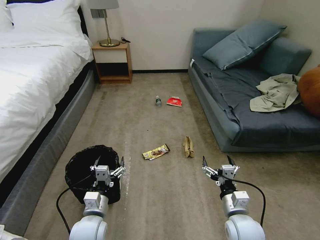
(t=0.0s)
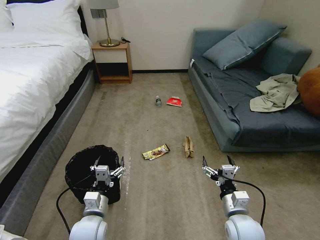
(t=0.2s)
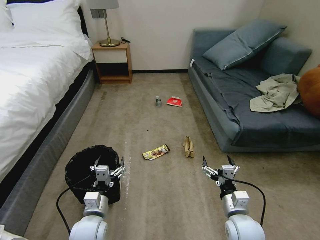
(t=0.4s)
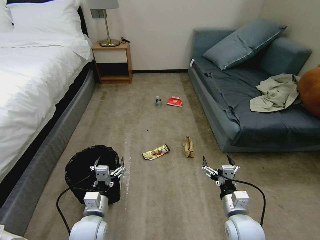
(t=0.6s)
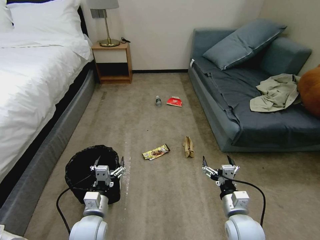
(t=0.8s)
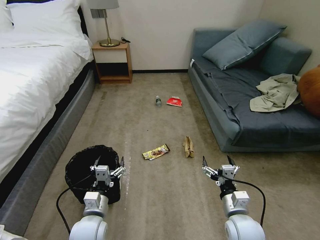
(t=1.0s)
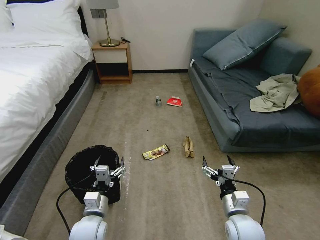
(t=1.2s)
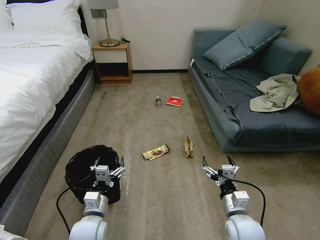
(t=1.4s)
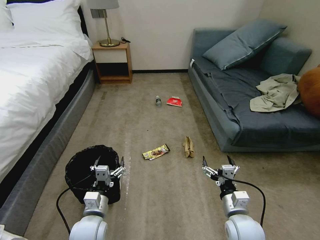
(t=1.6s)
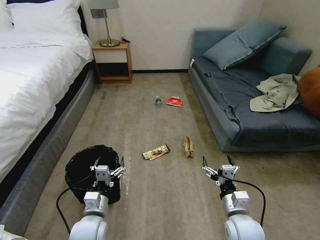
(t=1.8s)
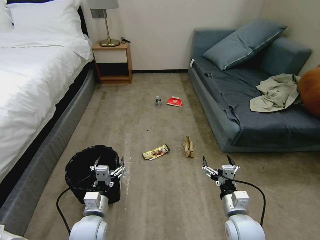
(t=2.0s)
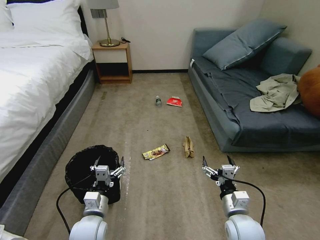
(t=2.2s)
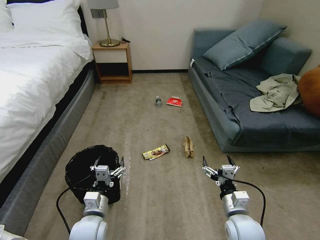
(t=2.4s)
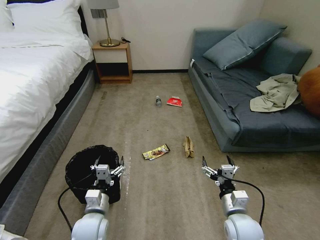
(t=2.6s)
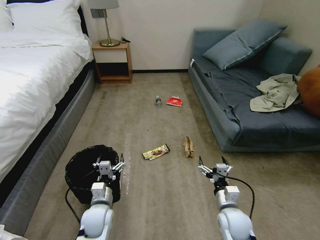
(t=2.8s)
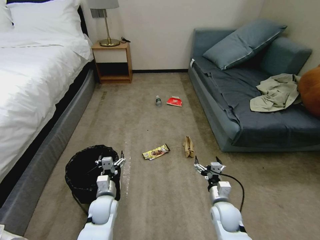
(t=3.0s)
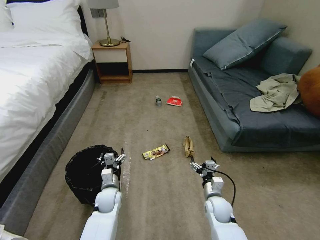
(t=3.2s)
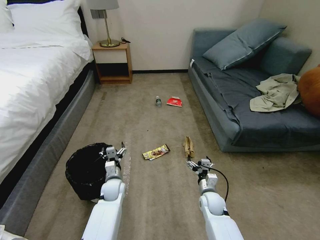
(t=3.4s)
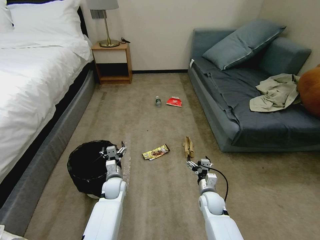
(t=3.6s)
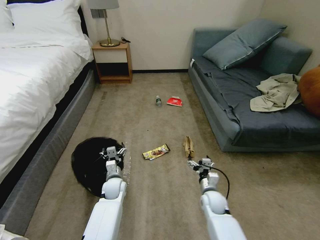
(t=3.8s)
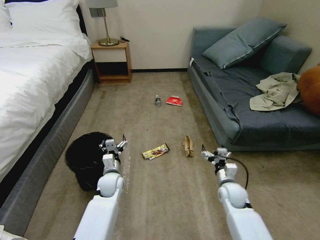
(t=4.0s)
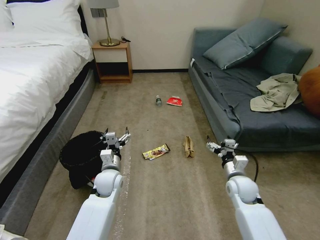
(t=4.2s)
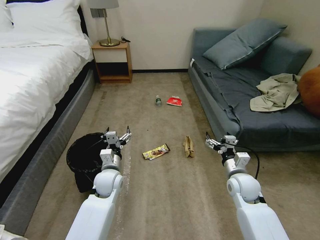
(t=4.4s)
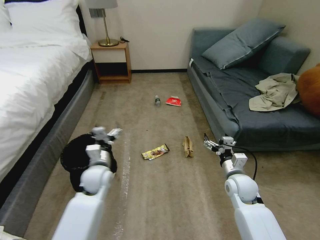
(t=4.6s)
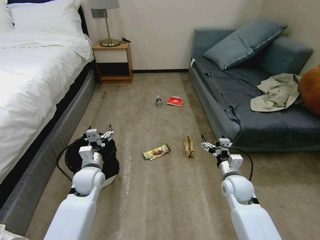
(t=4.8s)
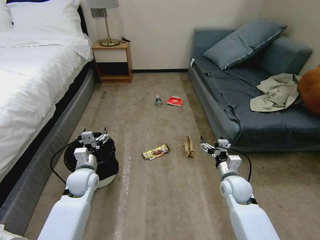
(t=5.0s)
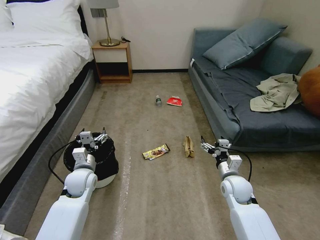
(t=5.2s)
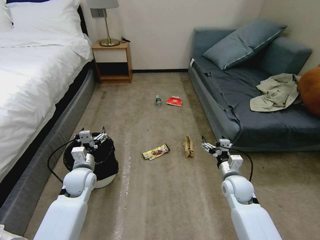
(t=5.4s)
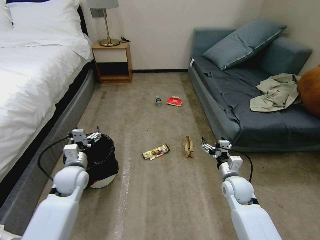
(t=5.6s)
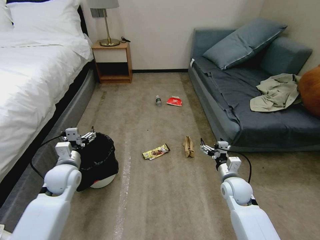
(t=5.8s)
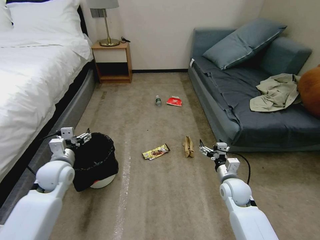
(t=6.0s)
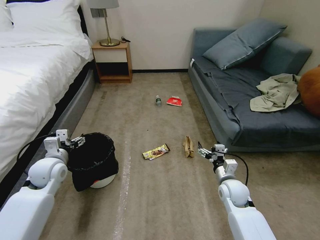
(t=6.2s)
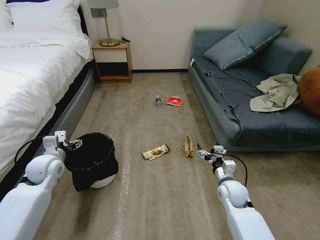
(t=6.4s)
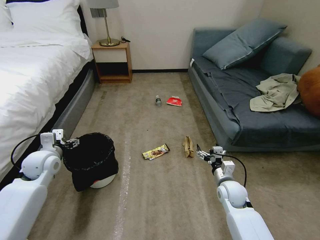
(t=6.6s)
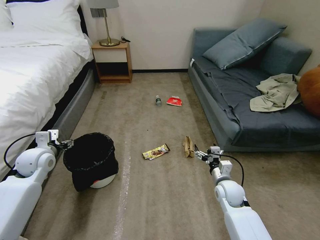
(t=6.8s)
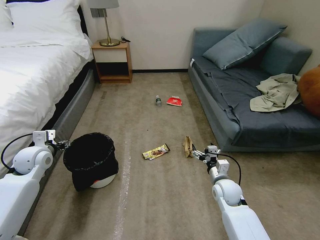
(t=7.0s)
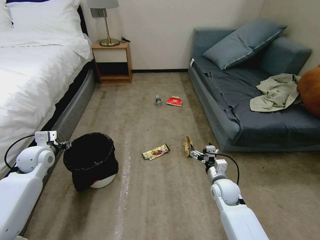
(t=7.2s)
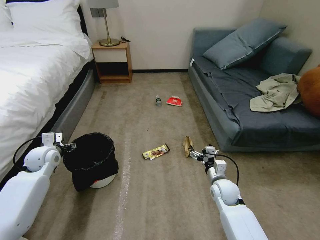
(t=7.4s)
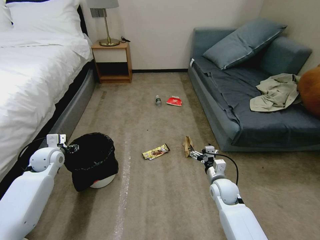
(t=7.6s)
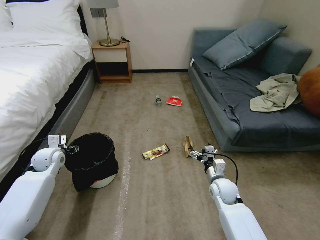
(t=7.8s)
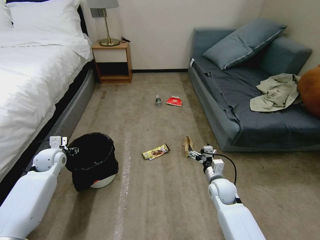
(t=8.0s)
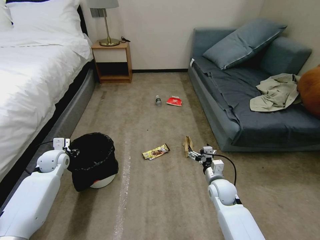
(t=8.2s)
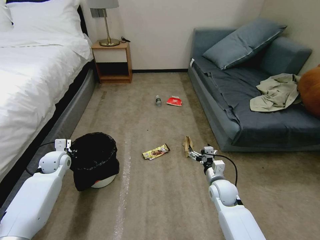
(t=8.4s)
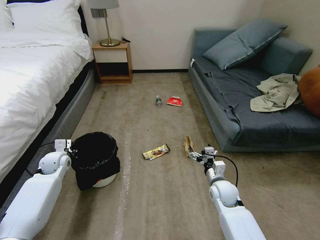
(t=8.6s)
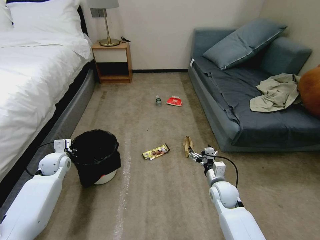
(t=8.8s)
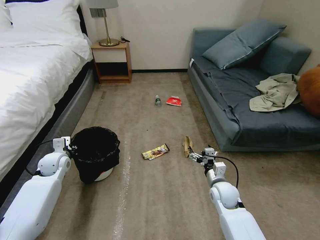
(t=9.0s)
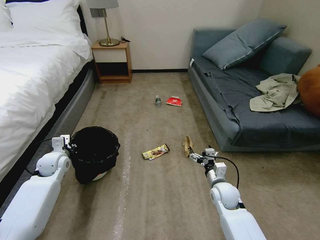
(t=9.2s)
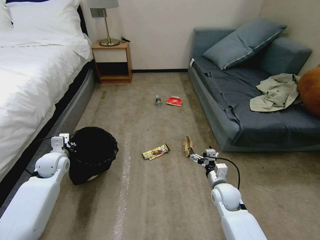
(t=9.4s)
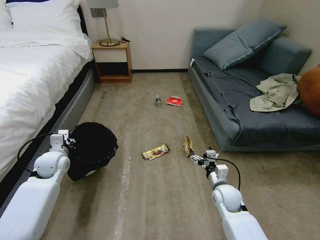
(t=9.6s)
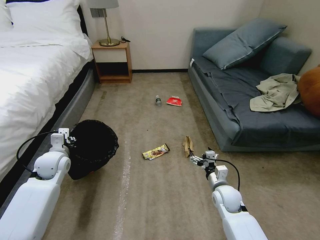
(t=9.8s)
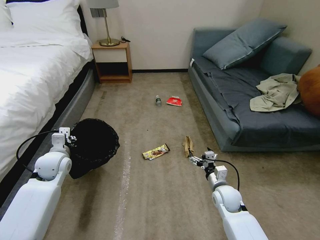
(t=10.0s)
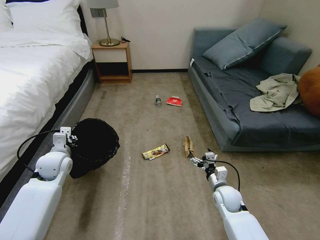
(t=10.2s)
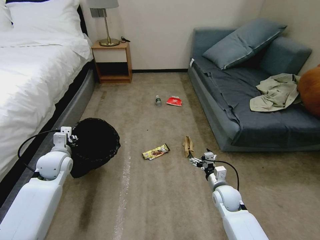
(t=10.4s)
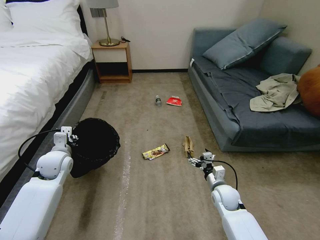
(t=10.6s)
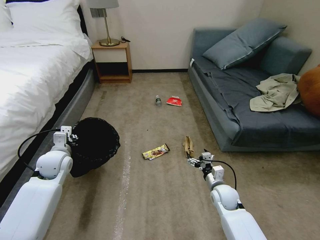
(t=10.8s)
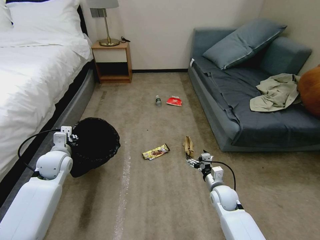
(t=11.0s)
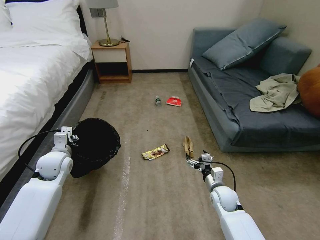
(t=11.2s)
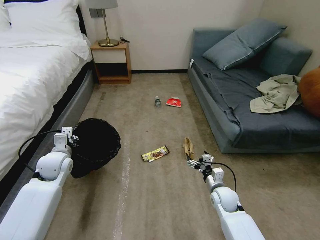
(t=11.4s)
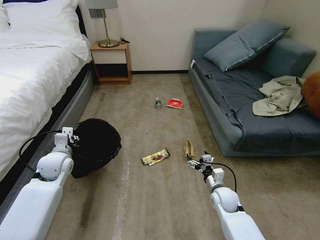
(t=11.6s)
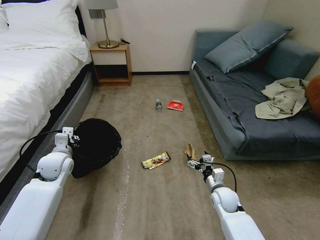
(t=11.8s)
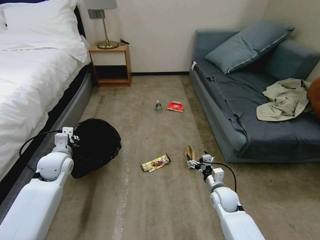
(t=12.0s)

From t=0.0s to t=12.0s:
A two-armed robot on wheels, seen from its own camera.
Task of the whole recording: Pick up the trash bin, then pick up the garbage on the floor and place it into the trash bin.
From t=0.0s to t=1.6s: The two grippers keep their place.
From t=1.6s to t=3.0s: The left gripper heads forward and downward, covering roughly 10 cm; the right gripper travels downward and forward by roughly 10 cm.
From t=3.0s to t=4.4s: The left gripper moves upward and forward, about 10 cm. The right gripper is displaced upward, forward and to the right by about 10 cm.
From t=4.4s to t=6.0s: The left gripper shifts approximately 20 cm to the left and upward.
From t=6.0s to t=7.6s: The left gripper travels to the left and forward by about 10 cm.
From t=7.6s to t=9.0s: The left gripper closes.
From t=9.0s to t=10.4s: The left gripper is displaced upward by about 5 cm.
From t=10.4s to t=12.0s: The grippers make only small movements.

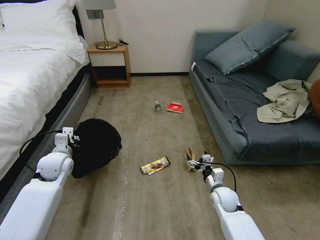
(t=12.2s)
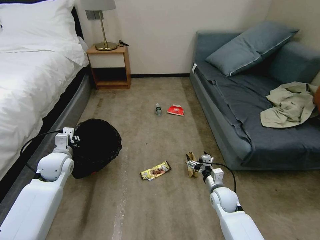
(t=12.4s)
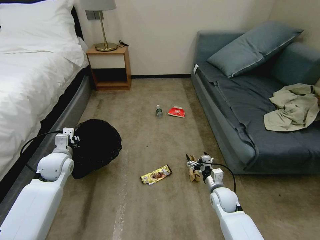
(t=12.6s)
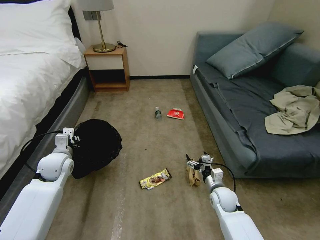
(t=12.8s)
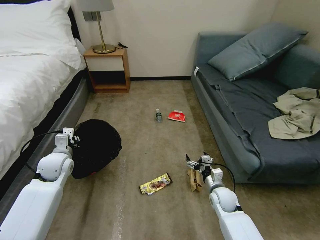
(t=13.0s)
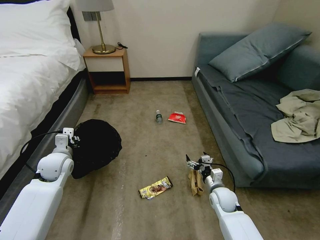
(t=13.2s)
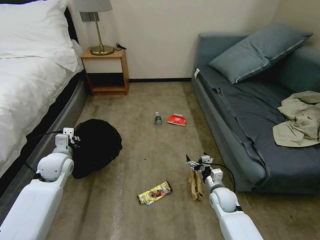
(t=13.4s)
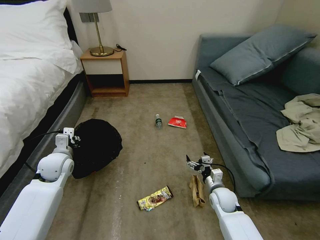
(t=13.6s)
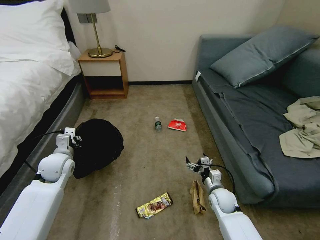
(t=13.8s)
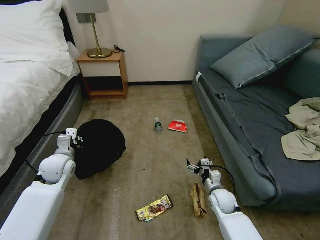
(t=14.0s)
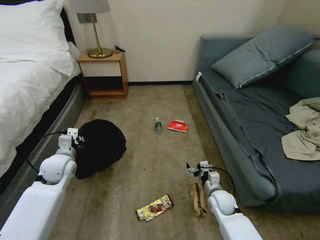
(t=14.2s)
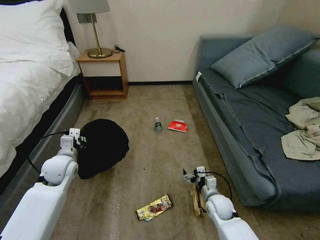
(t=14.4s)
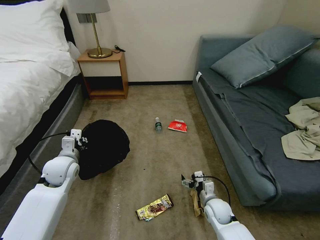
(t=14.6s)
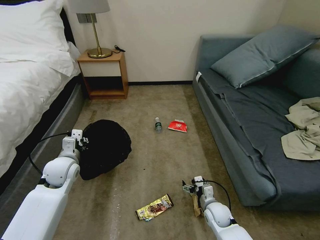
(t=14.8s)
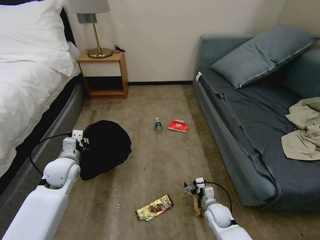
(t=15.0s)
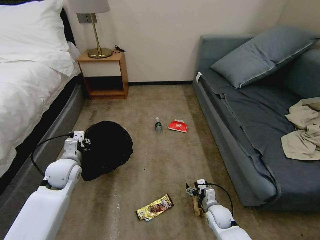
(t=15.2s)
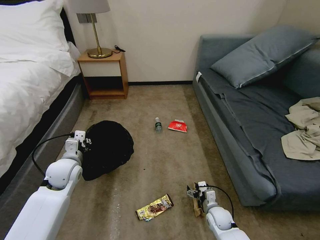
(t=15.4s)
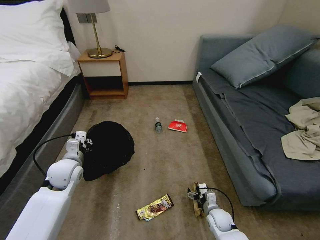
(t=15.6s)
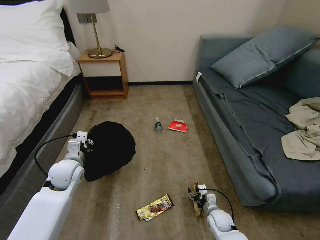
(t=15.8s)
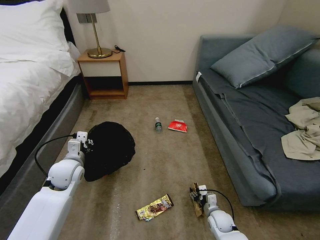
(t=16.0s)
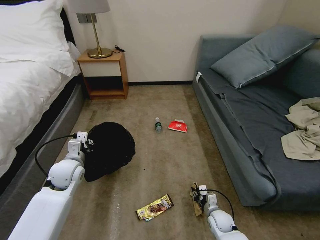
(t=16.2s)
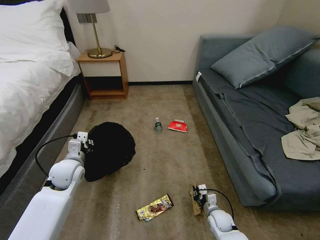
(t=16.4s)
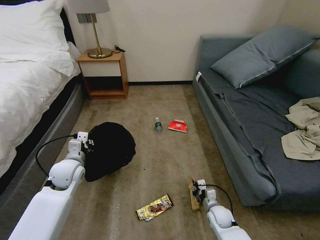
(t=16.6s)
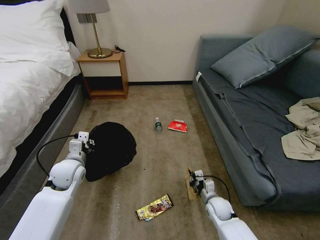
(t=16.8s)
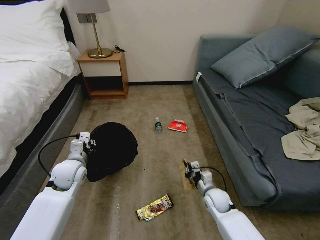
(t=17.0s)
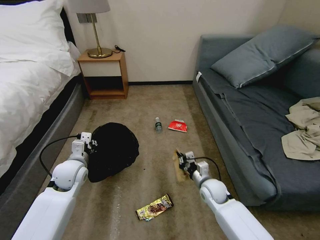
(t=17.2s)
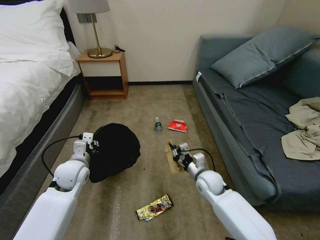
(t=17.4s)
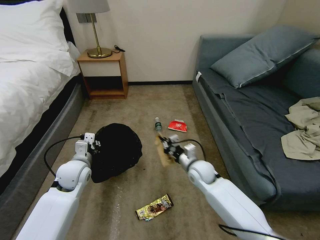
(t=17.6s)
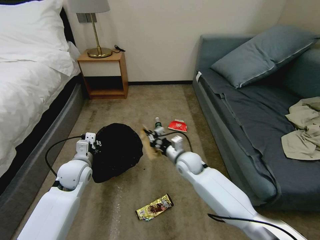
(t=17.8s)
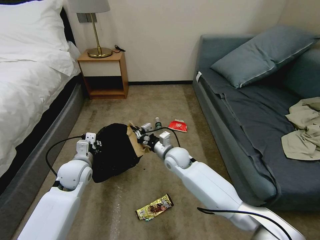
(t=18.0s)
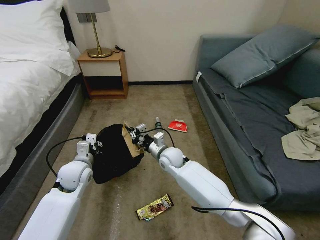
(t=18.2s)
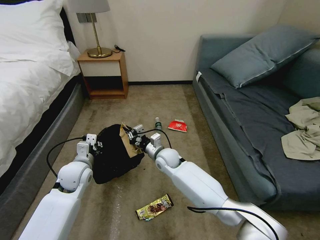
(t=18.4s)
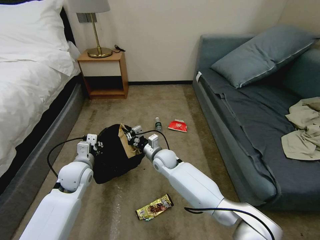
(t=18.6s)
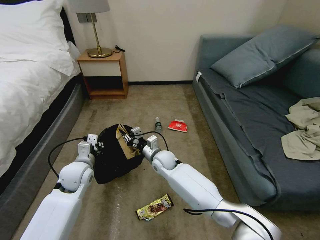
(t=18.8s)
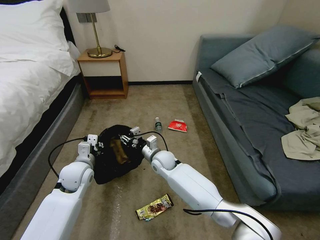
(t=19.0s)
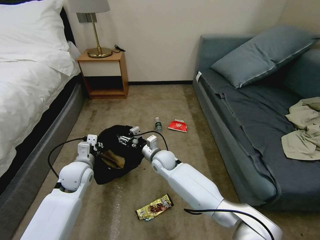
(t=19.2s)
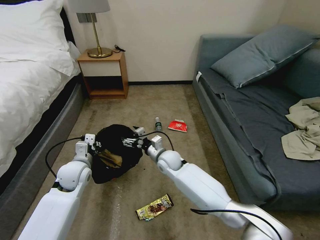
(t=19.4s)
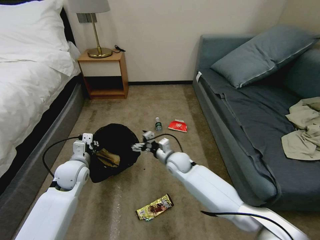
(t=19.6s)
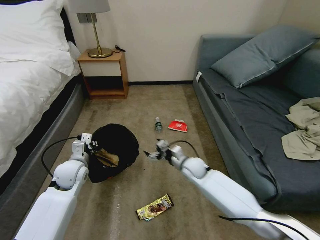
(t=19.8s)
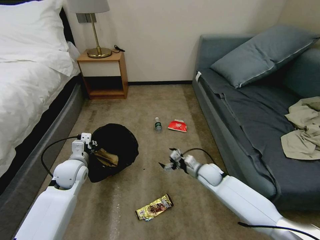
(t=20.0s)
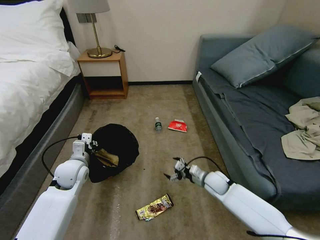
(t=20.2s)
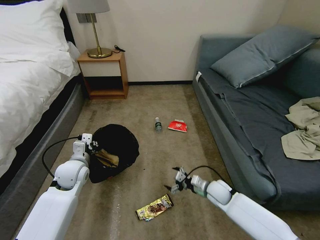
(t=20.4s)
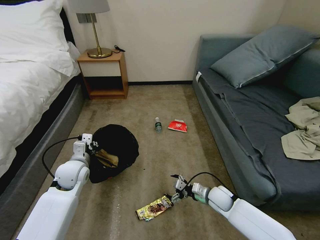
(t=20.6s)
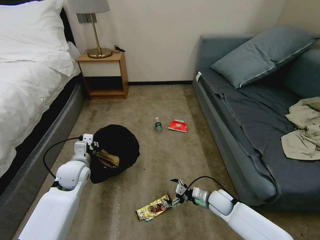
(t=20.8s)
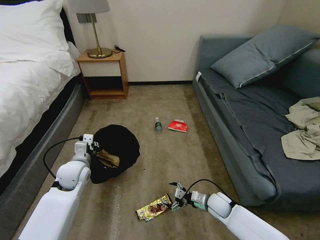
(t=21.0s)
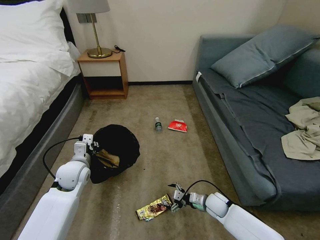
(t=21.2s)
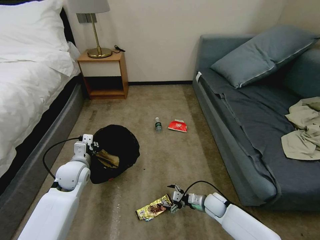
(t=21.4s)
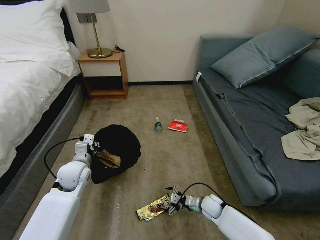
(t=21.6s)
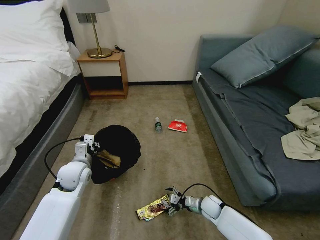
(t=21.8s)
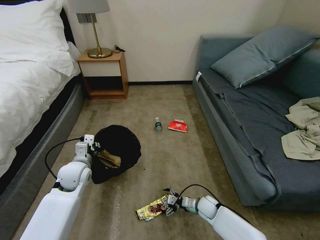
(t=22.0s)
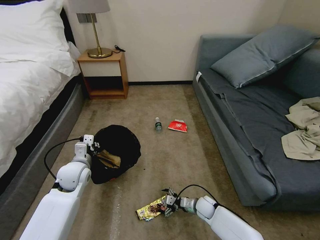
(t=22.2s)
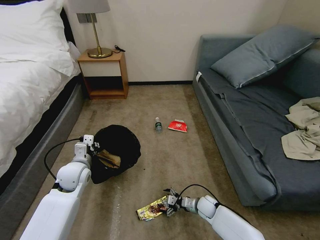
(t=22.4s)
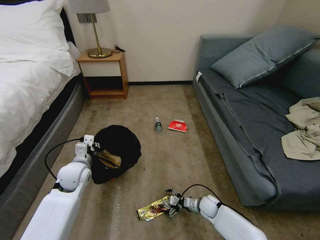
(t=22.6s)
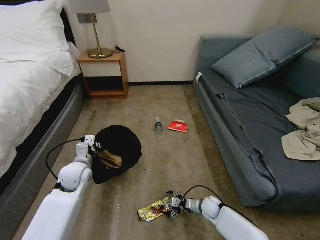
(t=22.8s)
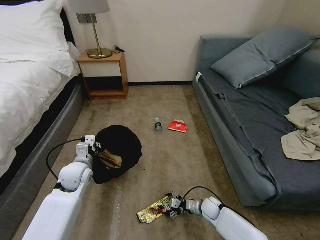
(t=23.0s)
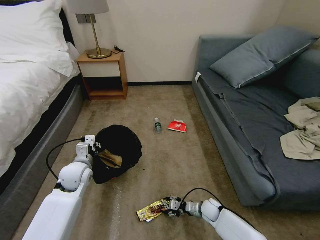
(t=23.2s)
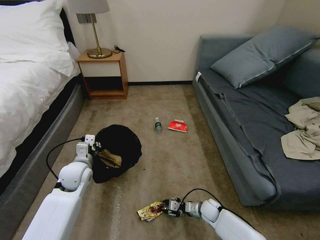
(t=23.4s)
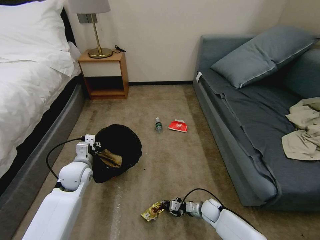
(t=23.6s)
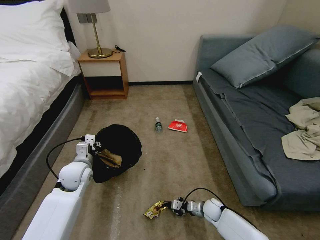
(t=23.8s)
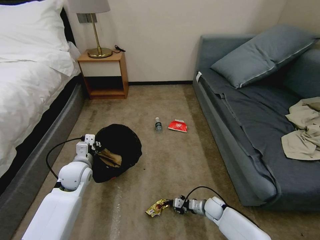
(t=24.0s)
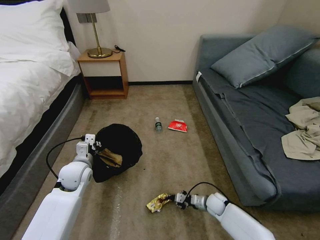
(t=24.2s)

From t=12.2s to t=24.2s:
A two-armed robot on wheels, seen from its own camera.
Task of the whole recording: Pick up the trash bin, then pick up the garbage on the floor and place it into the trash bin.
From t=13.8s to t=15.2s: The right gripper moves downward, about 5 cm.
From t=15.2s to t=16.6s: The right gripper closes up.
From t=16.6s to t=18.2s: The right gripper heads to the left, upward and forward, covering about 35 cm.
From t=18.2s to t=19.8s: The right gripper travels to the right by approximately 10 cm, and opens up.
From t=19.8s to t=21.2s: The right gripper moves downward, to the right and backward, about 20 cm.
From t=21.2s to t=22.6s: The right gripper heads downward, covering roughly 5 cm.
From t=22.6s to t=24.2s: The right gripper closes up.
